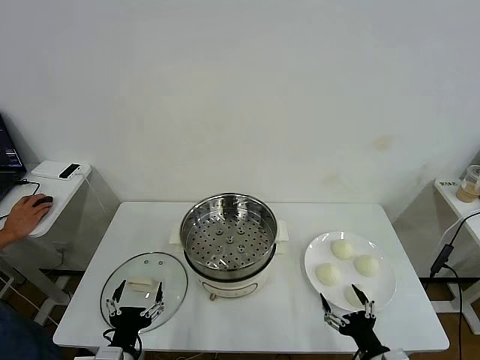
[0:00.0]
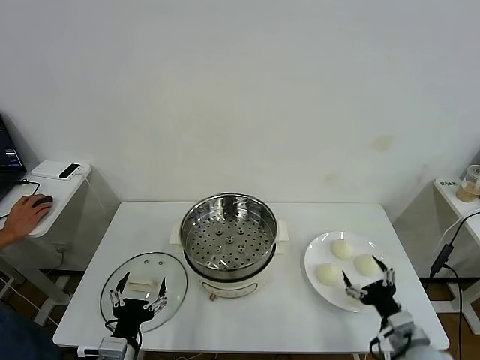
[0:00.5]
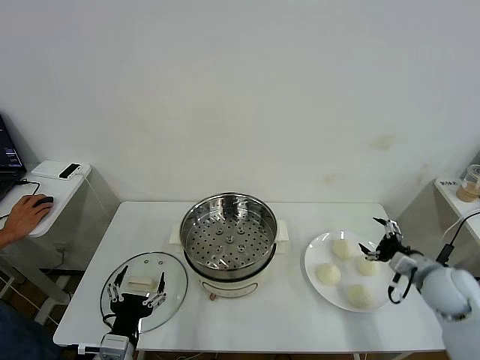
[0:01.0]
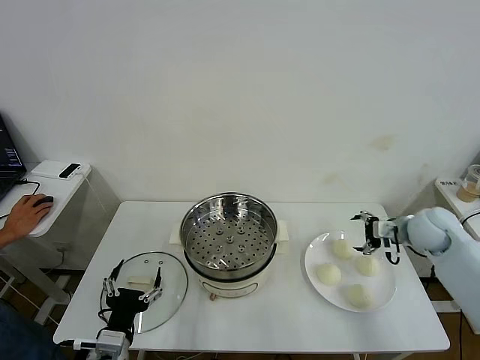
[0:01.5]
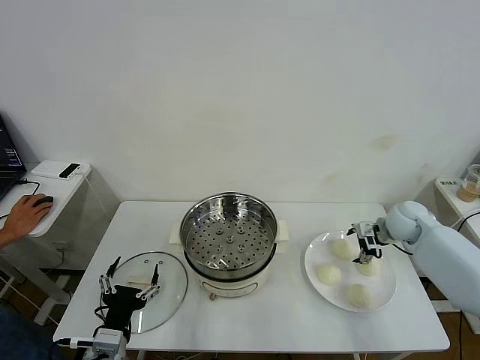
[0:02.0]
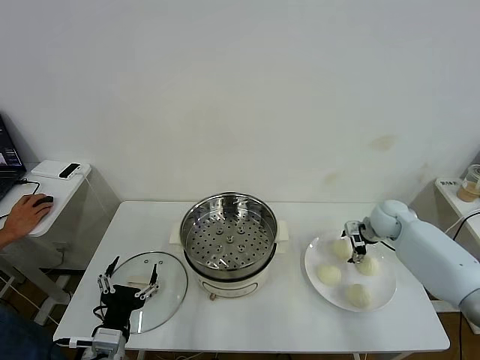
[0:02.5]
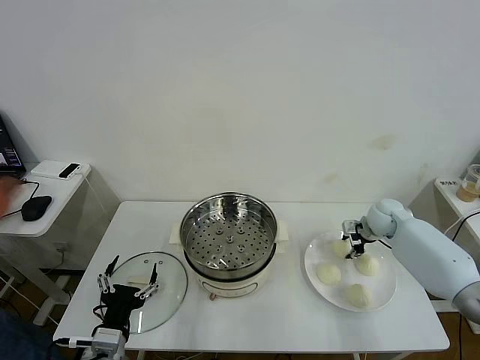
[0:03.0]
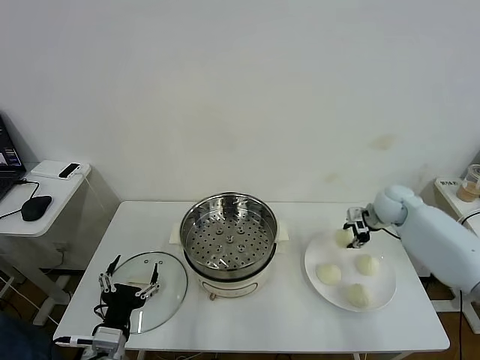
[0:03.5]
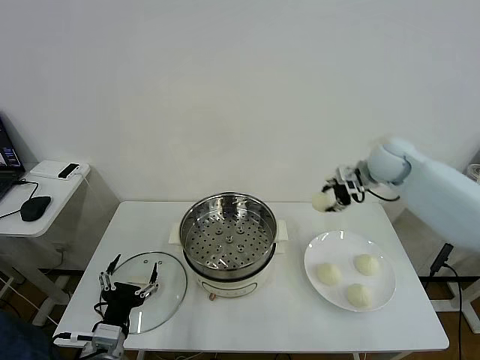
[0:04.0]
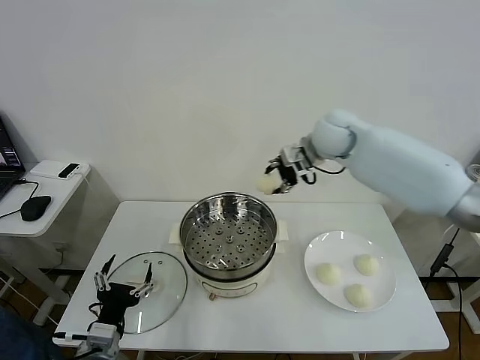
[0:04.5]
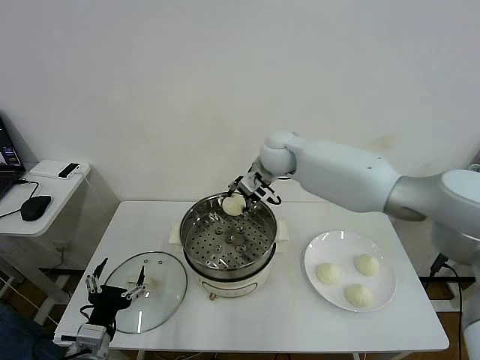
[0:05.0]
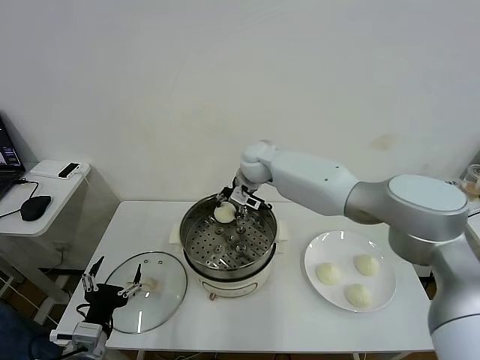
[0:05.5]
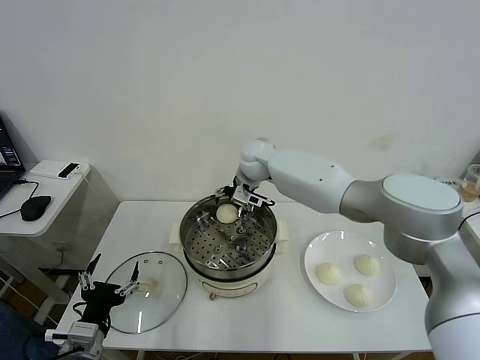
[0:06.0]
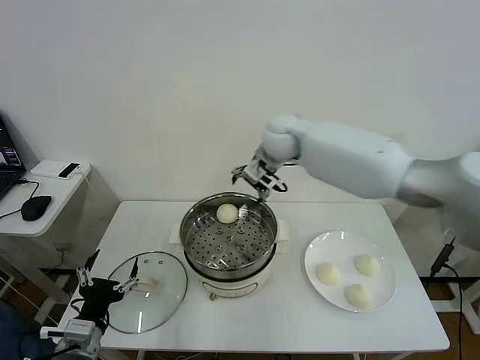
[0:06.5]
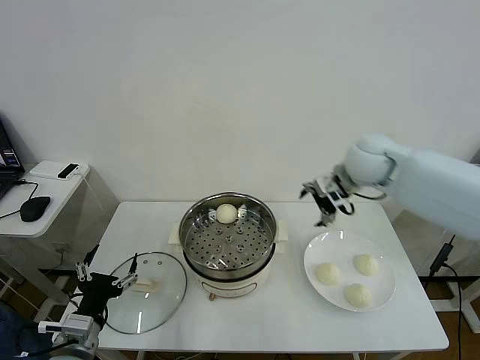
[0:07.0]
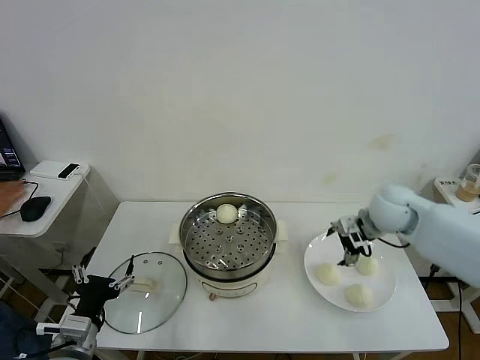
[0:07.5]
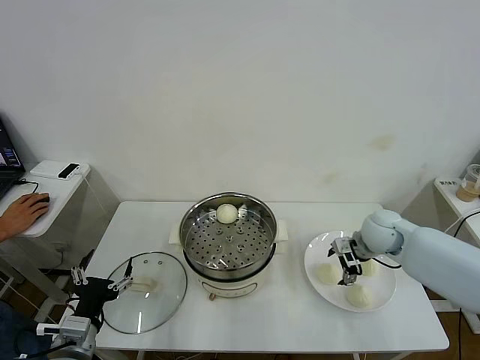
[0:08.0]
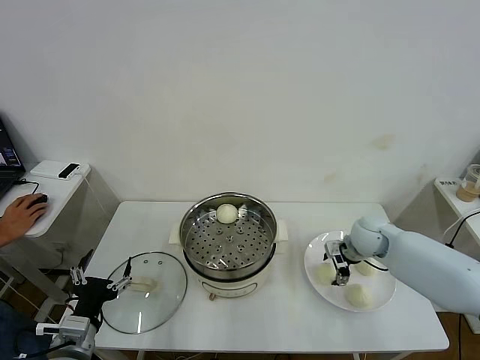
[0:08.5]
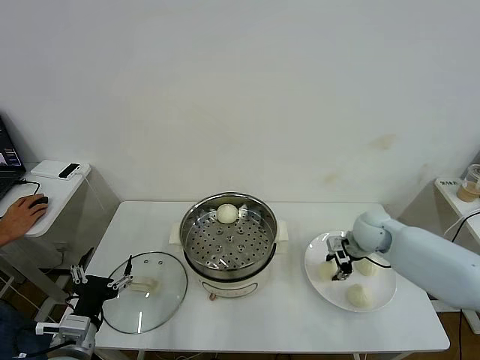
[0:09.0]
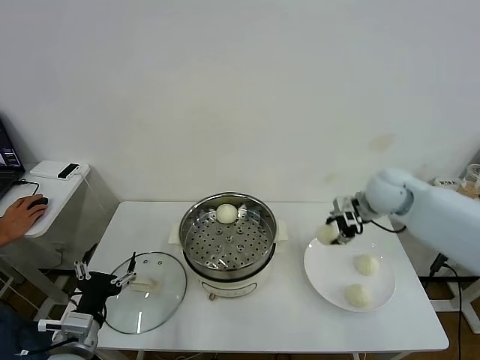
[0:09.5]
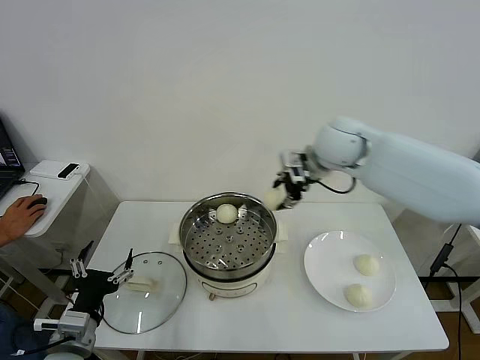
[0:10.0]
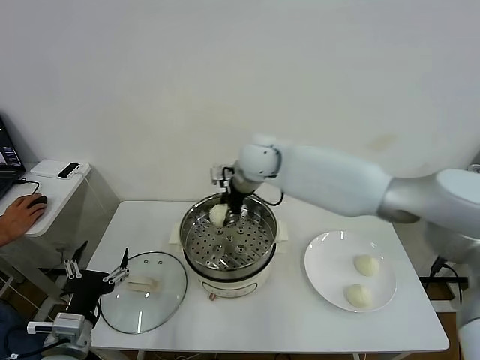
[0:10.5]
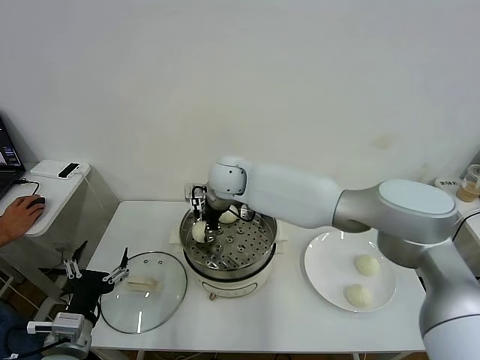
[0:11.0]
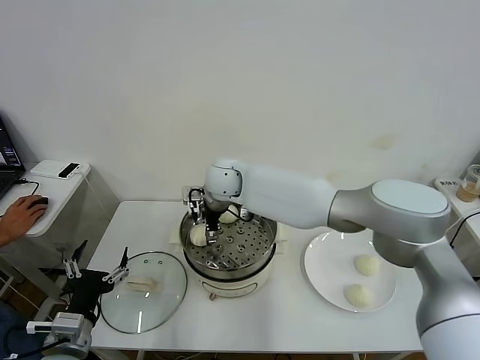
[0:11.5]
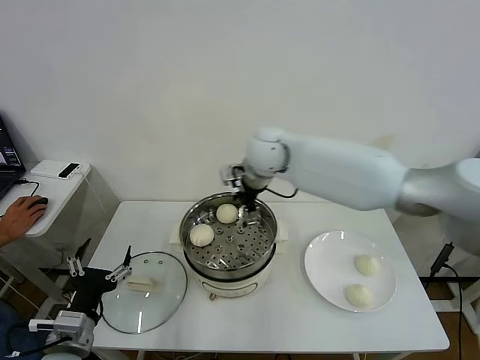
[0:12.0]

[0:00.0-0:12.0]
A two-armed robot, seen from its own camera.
Task of the whole recording: take steamed baozi put them in steamer then cover it.
Step, 0:00.0 to 0:03.0: Grasp the baozi in the plate with right gripper.
Step, 0:03.5 to 0:06.0: Place the baozi on the steamer with right gripper.
Step, 0:06.5 to 0:08.5: Grasp the baozi in the plate with right gripper.
Step, 0:09.0 to 0:11.5: Place the baozi on the steamer with right gripper.
0:02.0 to 0:04.0: The right gripper shifts some 20 cm upward and to the left, and closes its fingers.
0:04.0 to 0:06.0: The right gripper travels to the left by approximately 30 cm, and opens up.
0:06.0 to 0:08.0: The right gripper travels to the right and backward by roughly 30 cm.
0:08.0 to 0:10.0: The right gripper shifts roughly 25 cm upward and to the left, and closes.
0:10.0 to 0:12.0: The right gripper travels to the left by about 10 cm, and opens its fingers.

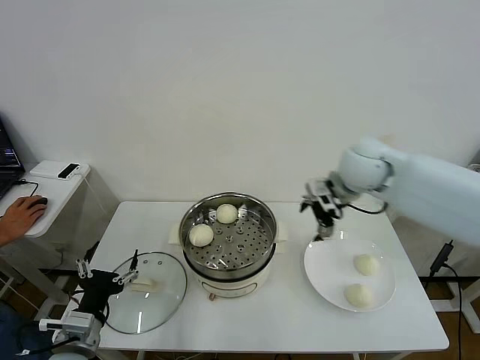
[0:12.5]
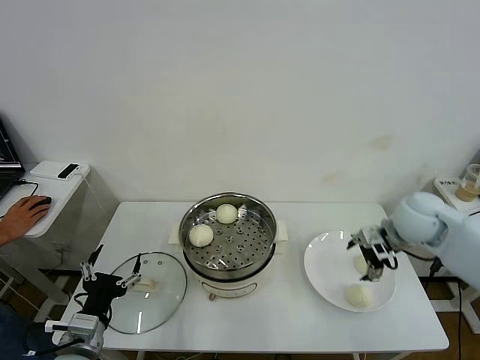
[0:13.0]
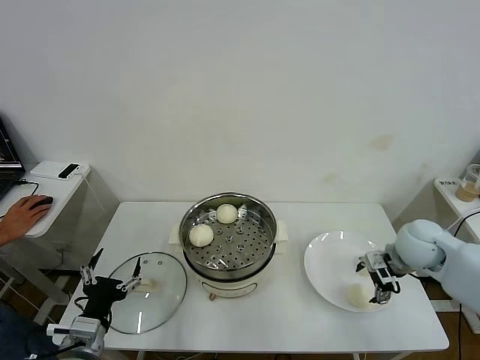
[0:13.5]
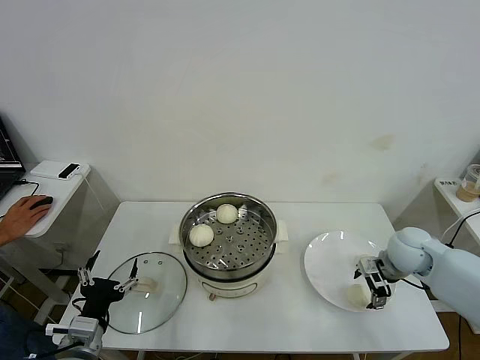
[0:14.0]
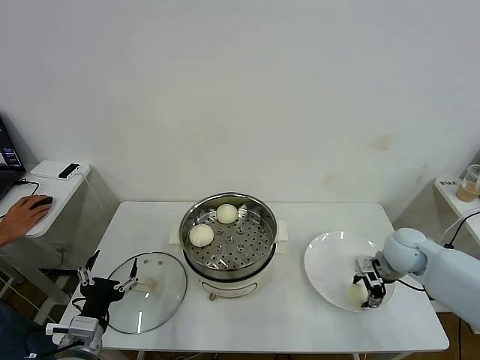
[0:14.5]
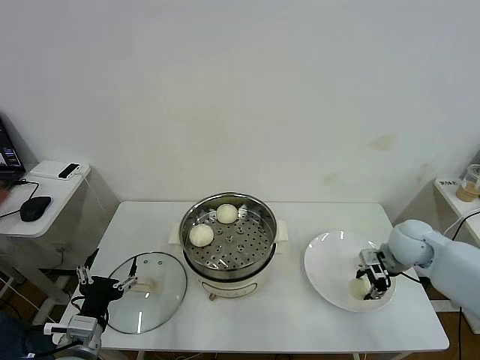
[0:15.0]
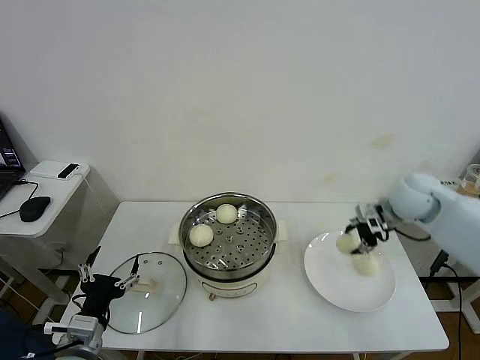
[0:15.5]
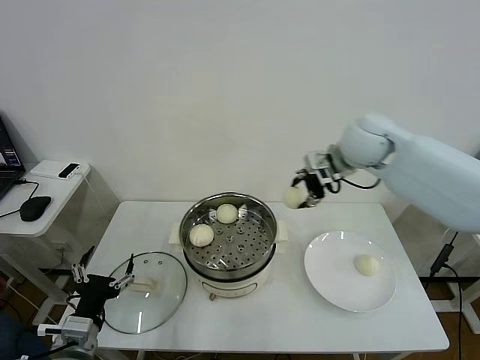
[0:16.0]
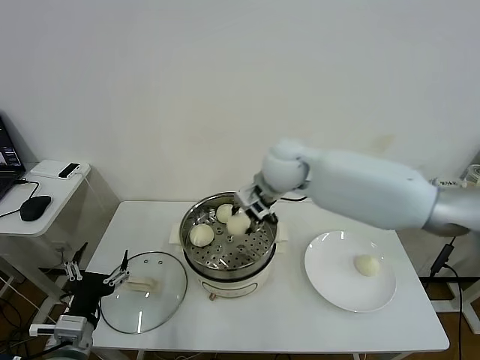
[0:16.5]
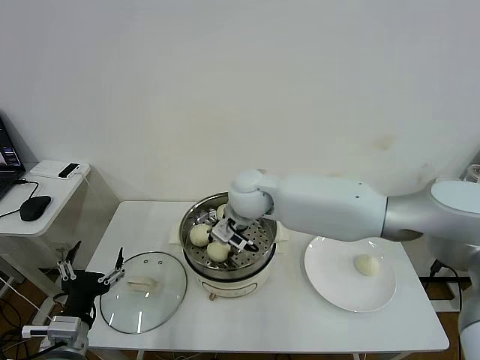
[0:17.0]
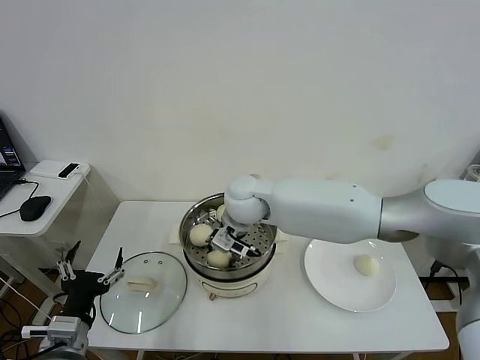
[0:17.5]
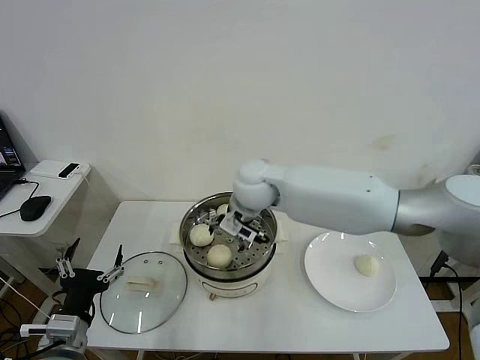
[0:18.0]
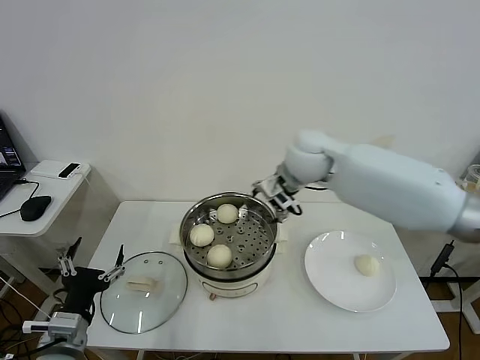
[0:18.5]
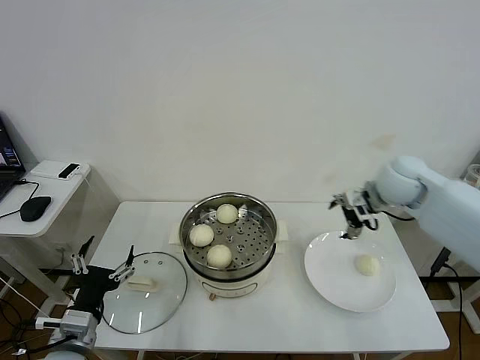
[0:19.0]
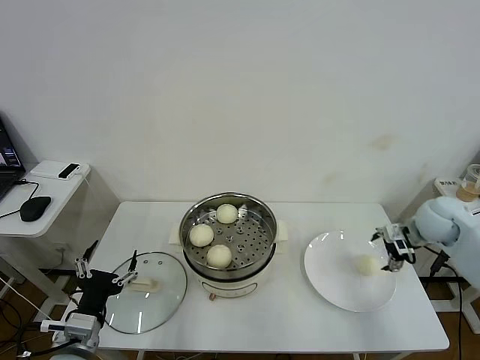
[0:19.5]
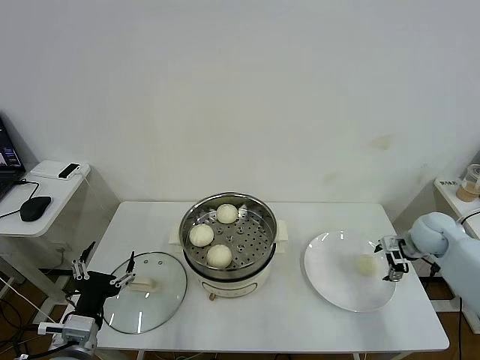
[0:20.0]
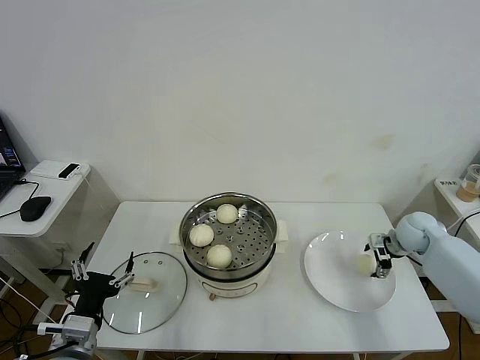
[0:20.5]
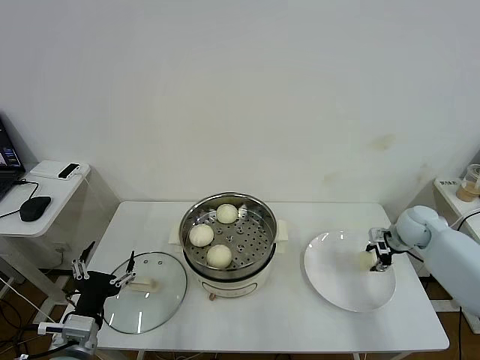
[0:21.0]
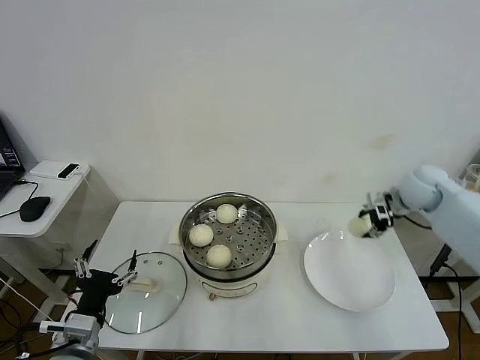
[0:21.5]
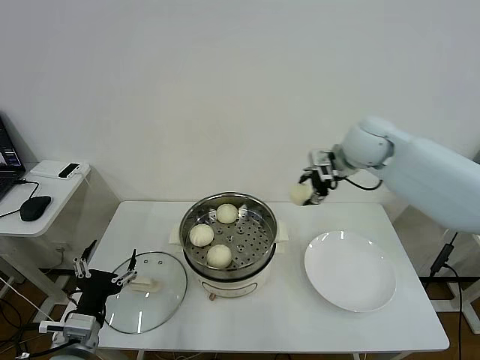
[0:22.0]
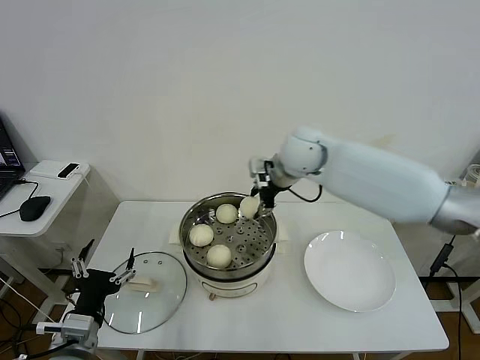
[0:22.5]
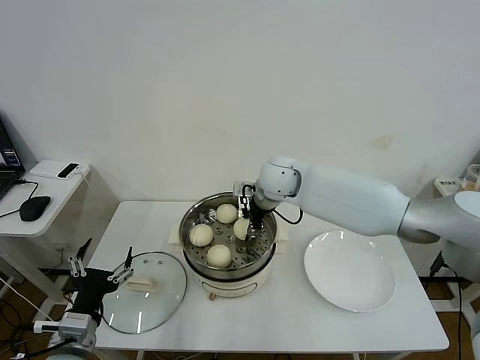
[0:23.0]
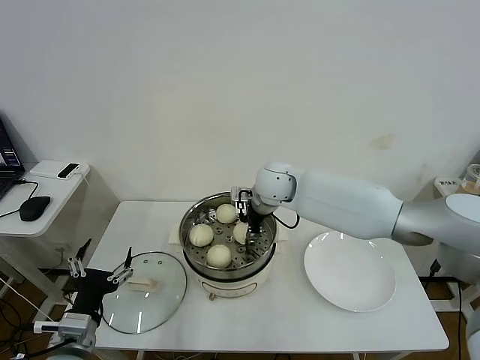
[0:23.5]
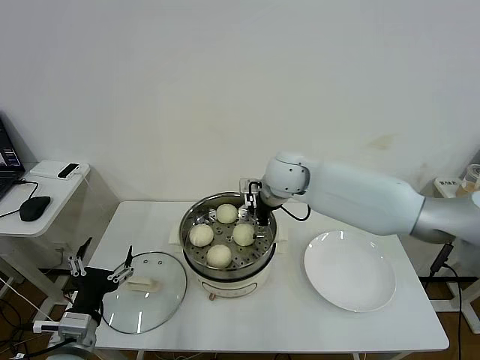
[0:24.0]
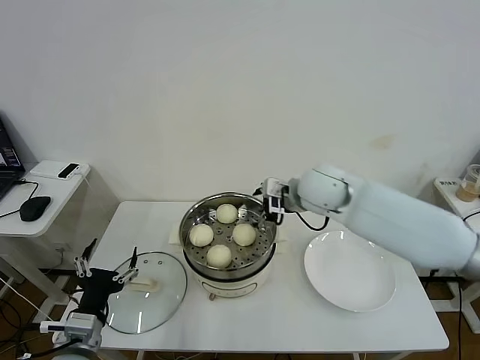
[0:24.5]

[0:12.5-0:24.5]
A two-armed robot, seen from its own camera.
Task of the whole recording: take steamed baozi put them in steamer then cover it.
Step, 0:12.5 to 0:14.5: Grasp the baozi in the plate with right gripper.
Step, 0:15.0 to 0:17.5: Place the baozi on the steamer with right gripper.
Step, 0:18.0 to 0:20.5: Grasp the baozi in the plate with right gripper.
Step, 0:21.0 to 0:23.5: Place the baozi on the steamer with right gripper.
0:12.5 to 0:14.5: The right gripper goes some 25 cm downward and to the right, and closes.
0:14.5 to 0:16.5: The right gripper shifts approximately 35 cm to the left and upward.
0:16.5 to 0:18.5: The right gripper goes roughly 5 cm to the right, and opens up.
0:18.5 to 0:20.5: The right gripper goes some 40 cm to the right and downward.
0:20.5 to 0:22.5: The right gripper heads to the left and upward, covering some 40 cm, and closes.
0:22.5 to 0:24.5: The right gripper heads backward, covering some 5 cm, and opens.

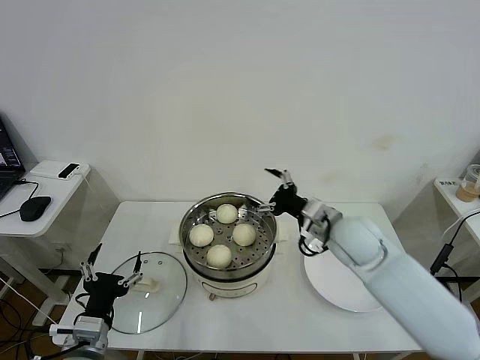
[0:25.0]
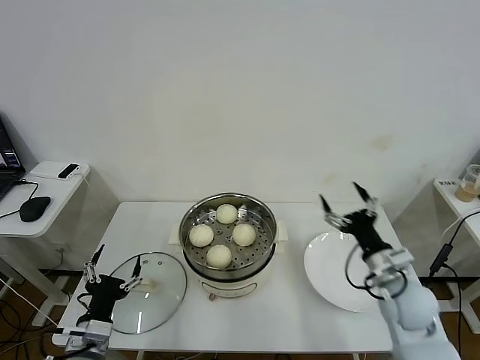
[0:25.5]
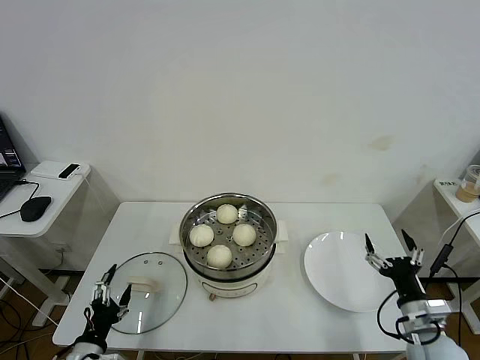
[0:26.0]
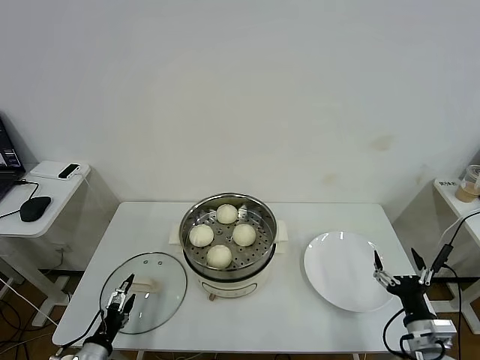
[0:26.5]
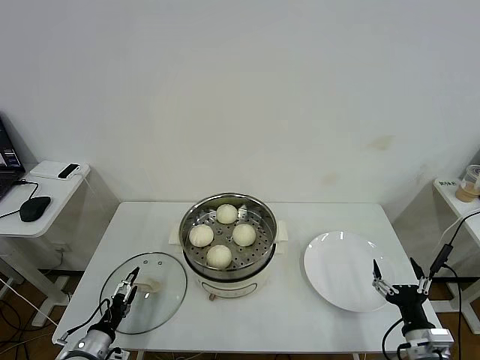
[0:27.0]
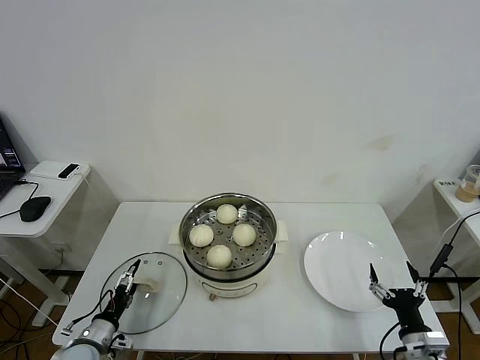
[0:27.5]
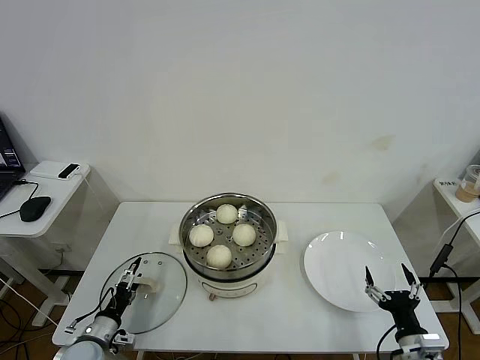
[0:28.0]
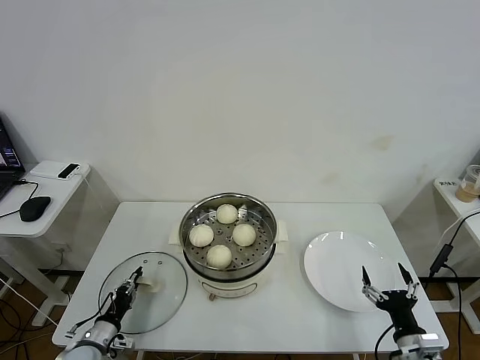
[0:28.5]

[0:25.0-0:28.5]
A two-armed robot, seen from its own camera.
Task of the whole recording: take steamed baozi put them in steamer then cover it.
0:25.0 to 0:27.0: The left gripper travels downward and to the left by approximately 15 cm. The right gripper goes approximately 35 cm backward, downward and to the right.
0:27.0 to 0:28.5: The left gripper closes.
